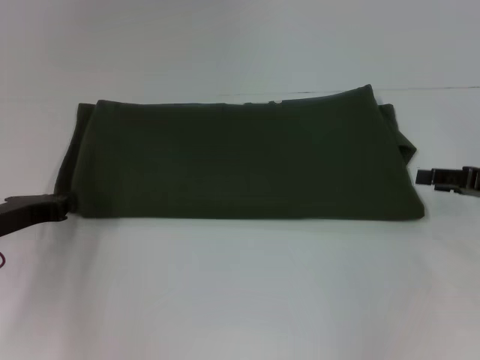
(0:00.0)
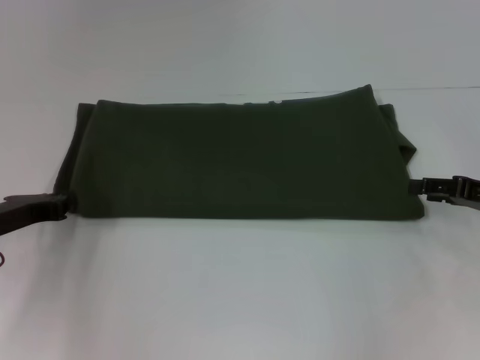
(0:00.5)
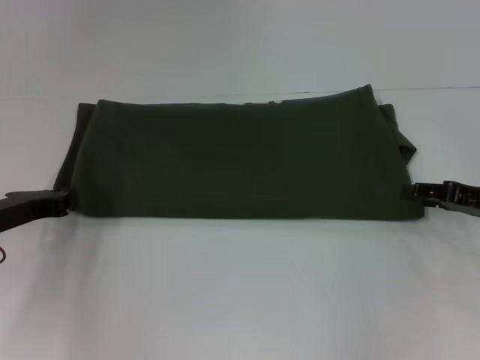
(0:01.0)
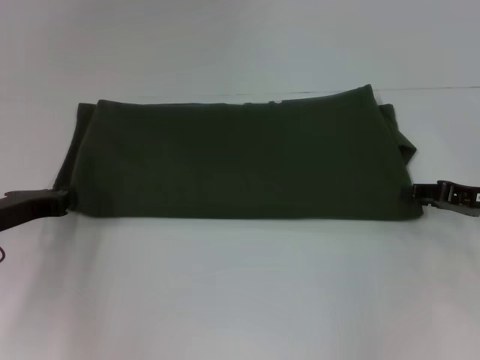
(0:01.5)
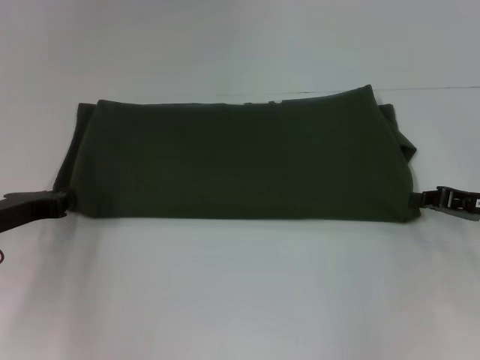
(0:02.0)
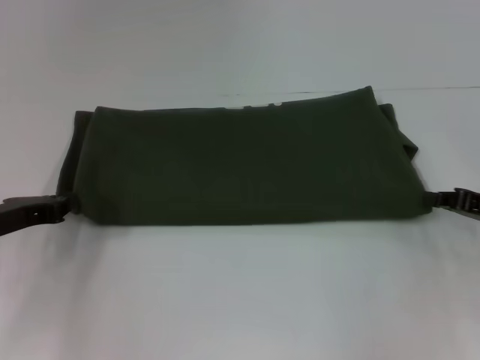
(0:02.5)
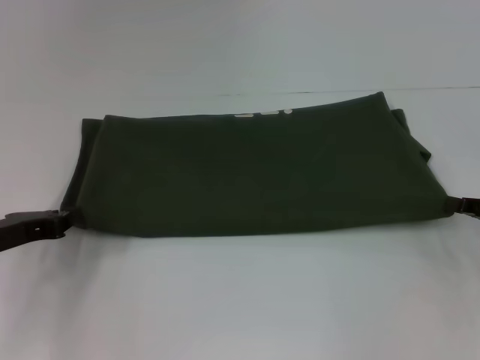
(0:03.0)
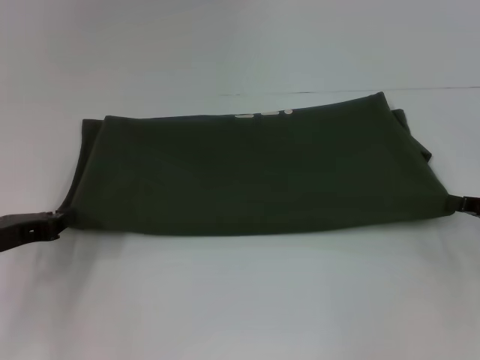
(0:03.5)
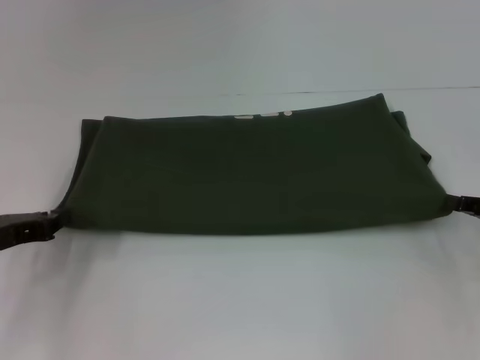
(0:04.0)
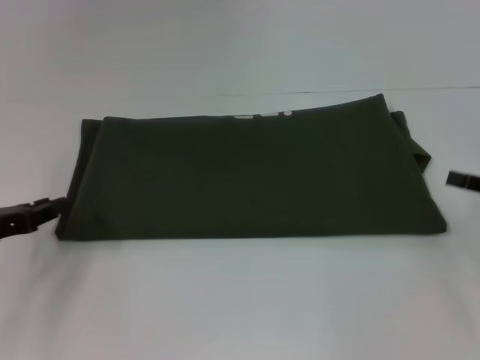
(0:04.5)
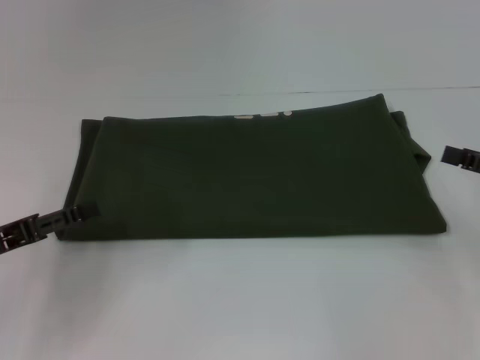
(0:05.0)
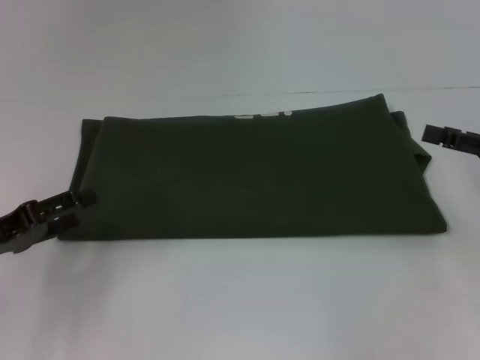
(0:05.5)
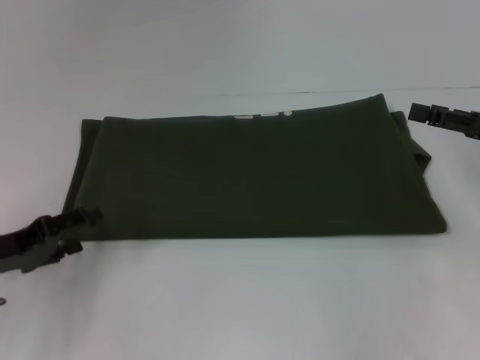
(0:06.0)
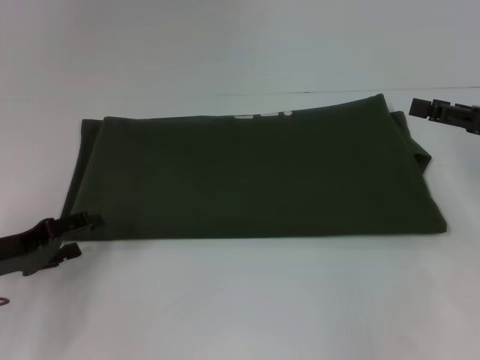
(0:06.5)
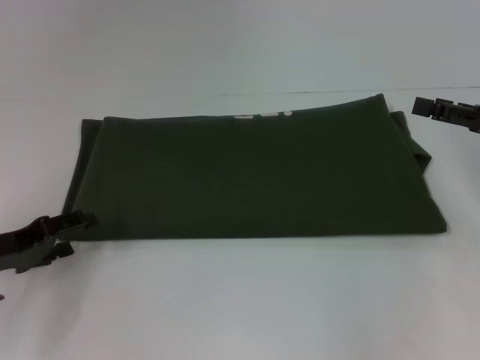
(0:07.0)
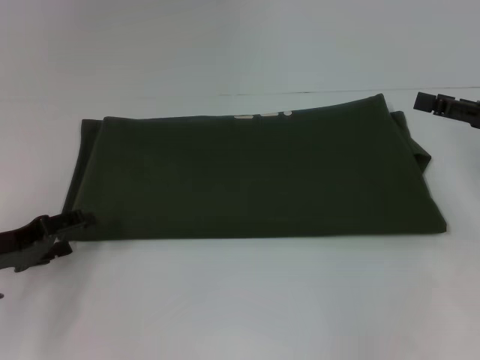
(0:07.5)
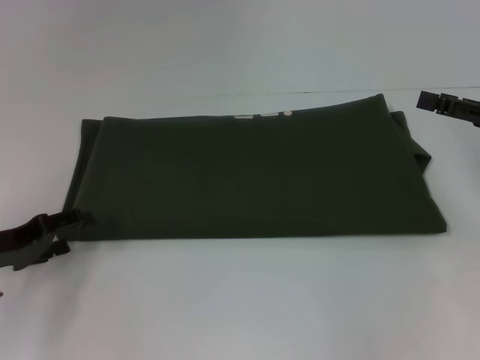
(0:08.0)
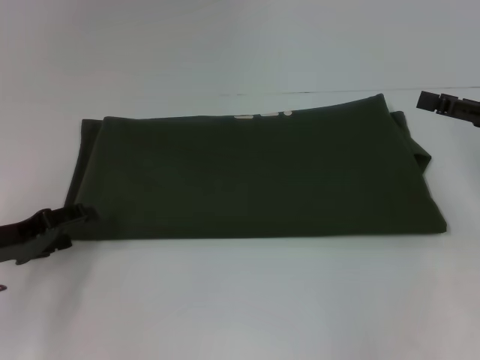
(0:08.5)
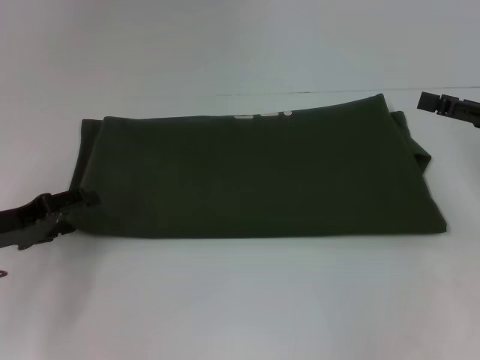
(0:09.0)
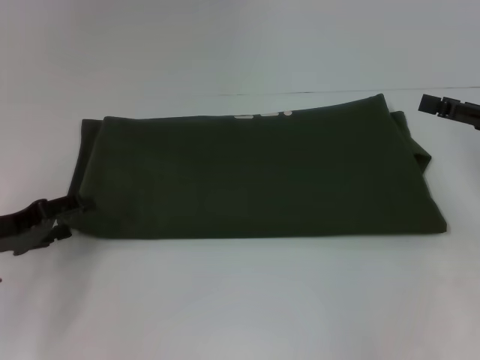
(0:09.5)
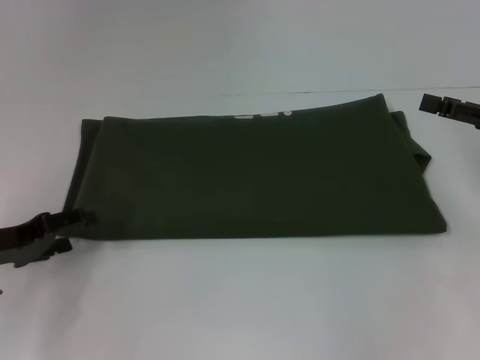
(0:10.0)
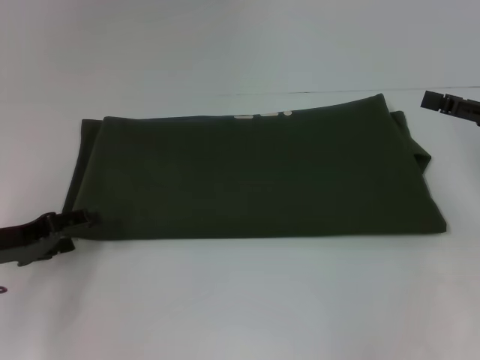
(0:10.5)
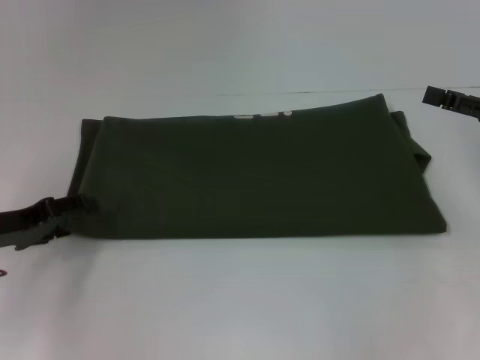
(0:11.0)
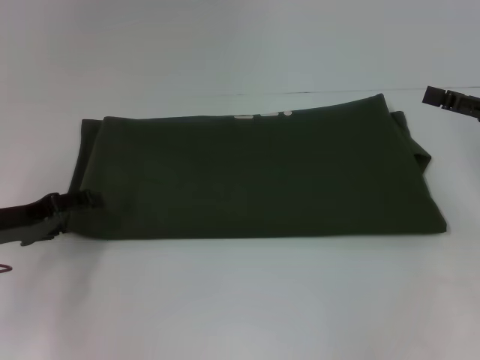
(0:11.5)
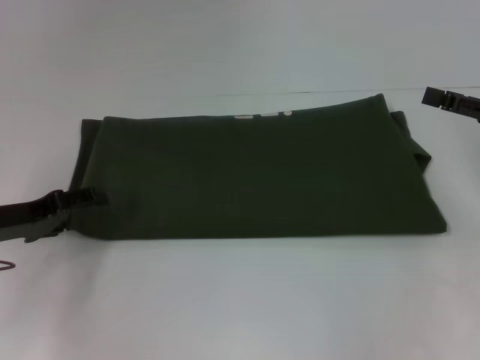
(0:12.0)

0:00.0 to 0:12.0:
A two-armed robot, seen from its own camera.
Step, 0:00.0 to 0:04.5: Pull the clothes with your left hand.
Step, 0:00.0 to 0:04.5: Pull the clothes with your right hand.
0:00.0 to 0:02.0: The right gripper closes.
0:02.0 to 0:04.0: The right gripper changes place by some 5 cm.
0:04.0 to 0:06.0: The right gripper travels upward by approximately 5 cm, and opens up, while the left gripper opens its fingers.
0:06.0 to 0:08.0: There are only small adjustments of the grippers.
0:10.0 to 0:12.0: There are only small adjustments of the grippers.

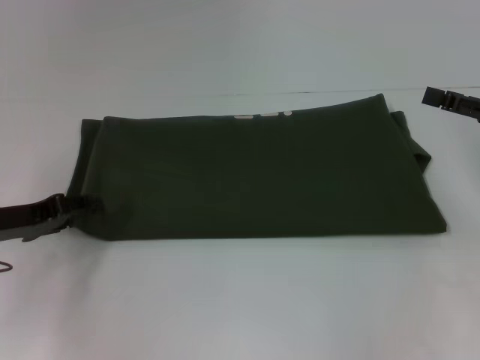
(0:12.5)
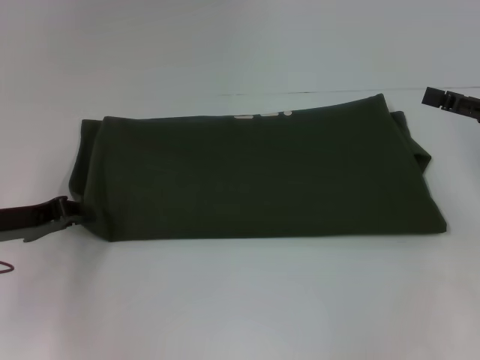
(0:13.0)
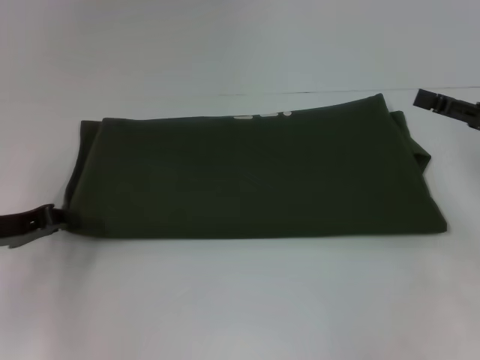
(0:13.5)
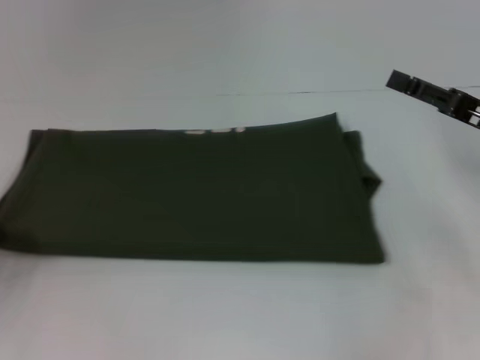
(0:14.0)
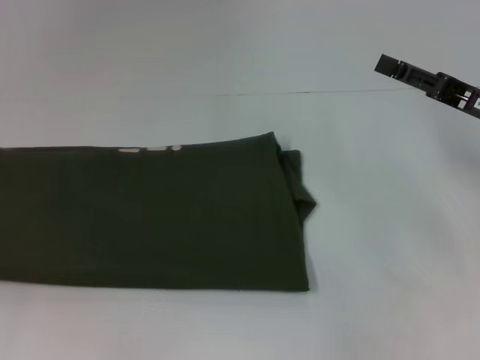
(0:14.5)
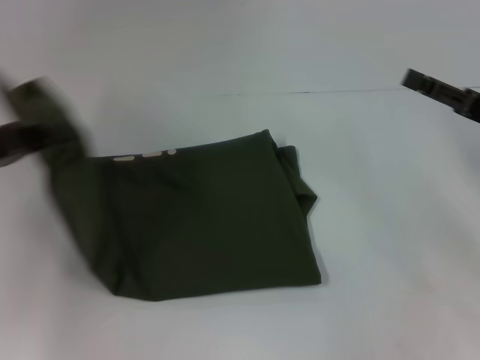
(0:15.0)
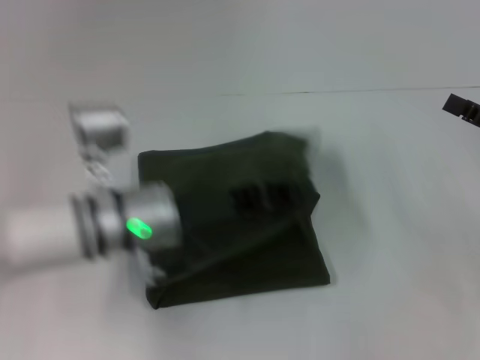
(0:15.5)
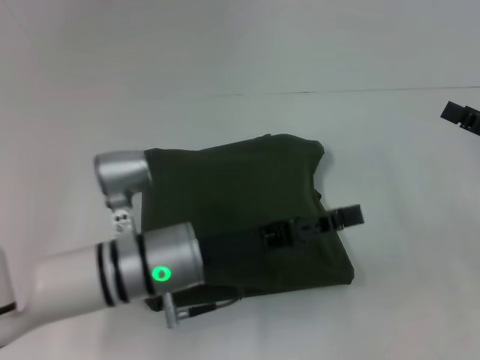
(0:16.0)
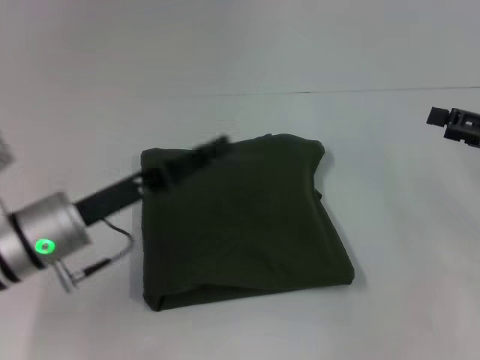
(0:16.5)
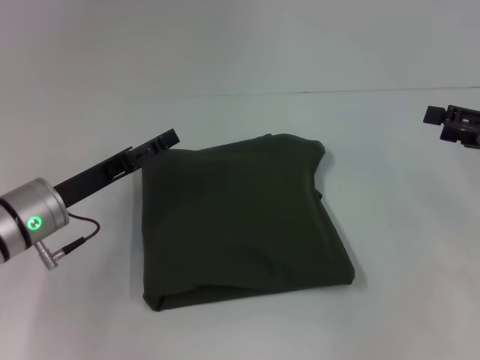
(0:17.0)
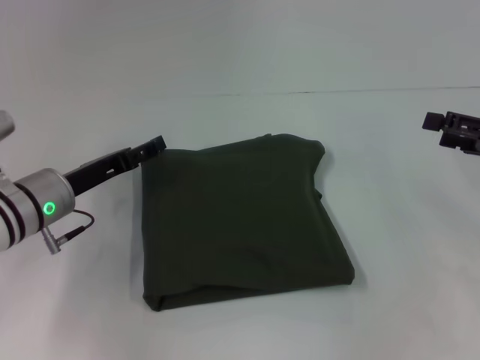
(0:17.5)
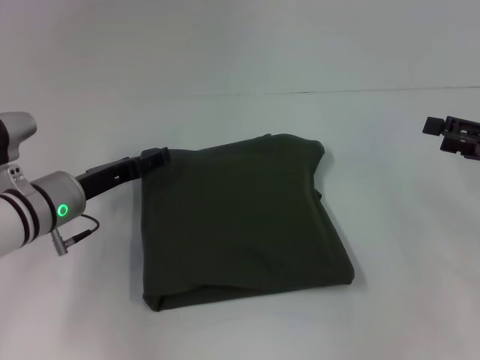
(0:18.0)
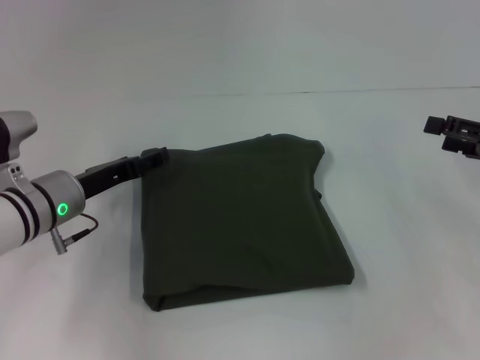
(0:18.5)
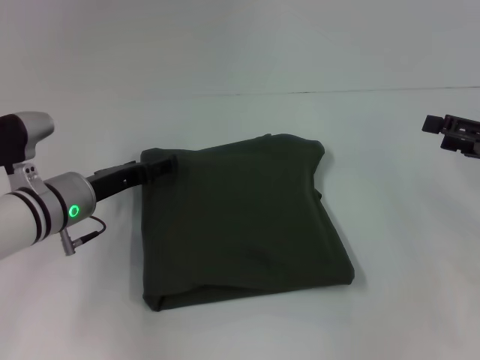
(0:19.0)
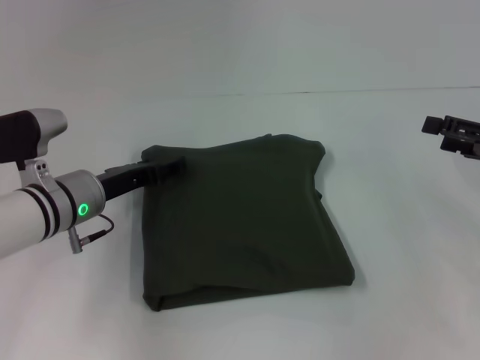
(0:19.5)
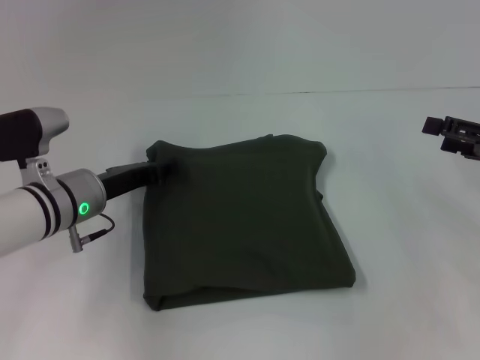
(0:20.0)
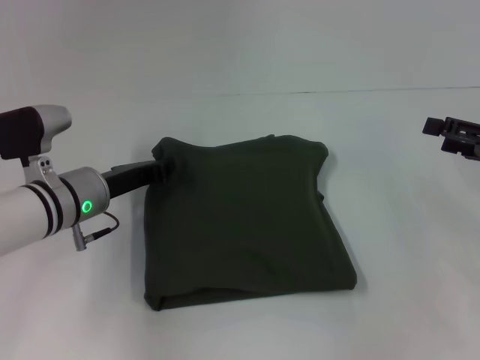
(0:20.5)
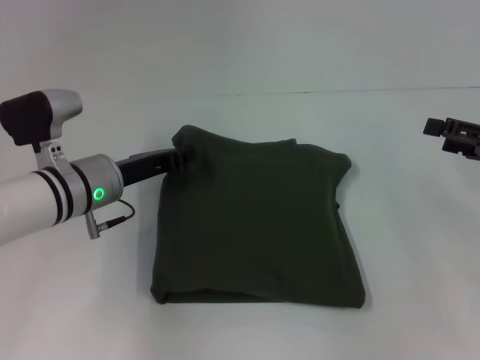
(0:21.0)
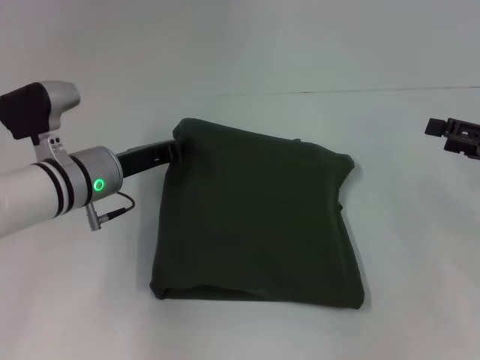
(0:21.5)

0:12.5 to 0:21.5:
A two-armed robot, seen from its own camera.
Step, 0:12.5 to 0:15.5: Fold the clothes with your left hand.
0:12.5 to 0:14.5: The right gripper shifts about 5 cm to the left; the left gripper heads to the left and backward, covering roughly 15 cm, and closes.
0:14.5 to 0:17.0: The right gripper heads to the right, covering about 5 cm; the left gripper goes roughly 25 cm to the right and forward, and opens its fingers.
0:17.0 to 0:19.5: The left gripper changes place by roughly 5 cm.
0:19.5 to 0:21.5: The left gripper closes its fingers.

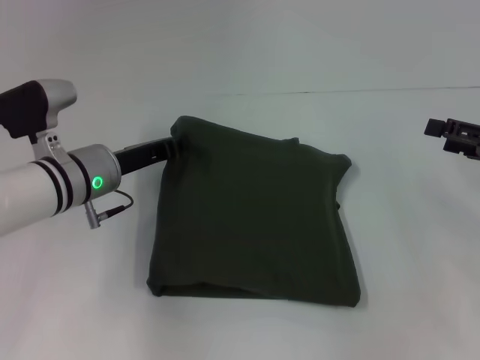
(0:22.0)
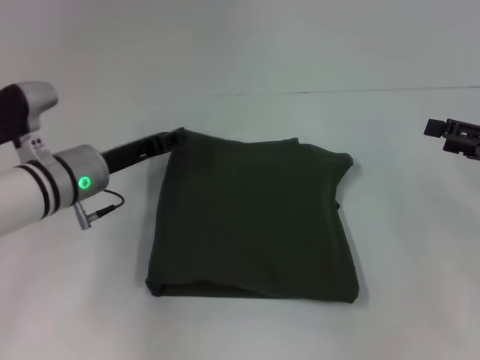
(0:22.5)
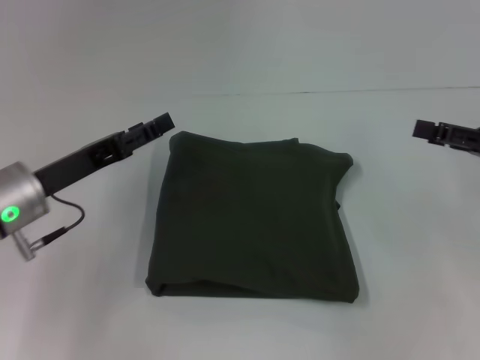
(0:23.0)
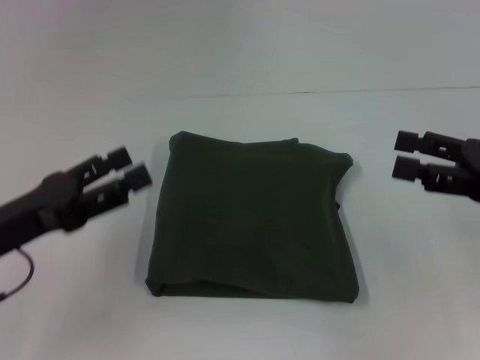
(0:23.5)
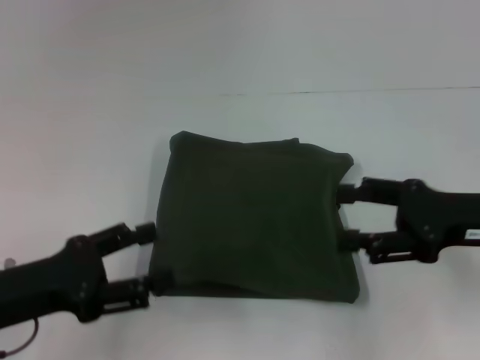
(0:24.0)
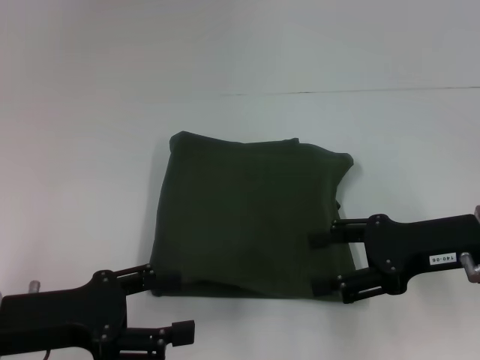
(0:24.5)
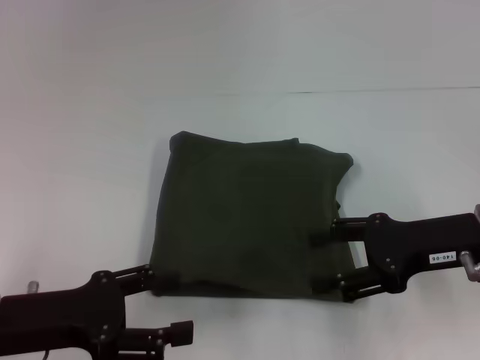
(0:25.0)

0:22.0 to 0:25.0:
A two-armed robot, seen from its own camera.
0:22.0 to 0:23.5: The right gripper moves about 5 cm; the left gripper travels backward and to the left by some 15 cm, and opens its fingers.
0:23.5 to 0:25.0: The right gripper travels to the left by about 5 cm.

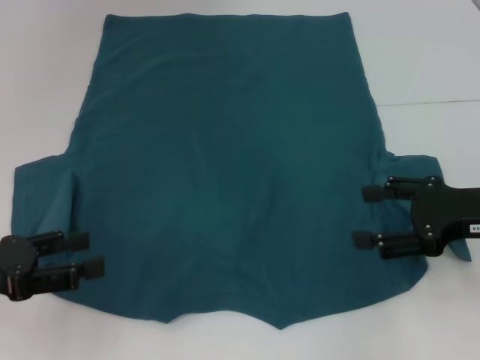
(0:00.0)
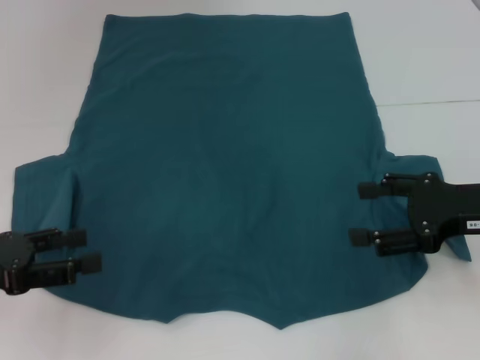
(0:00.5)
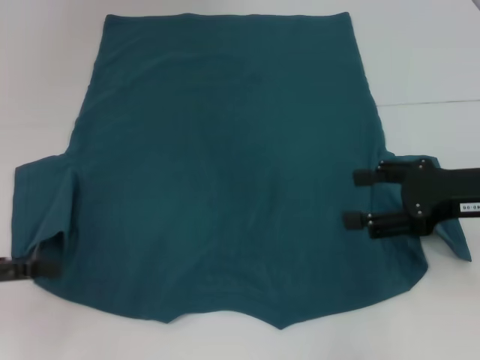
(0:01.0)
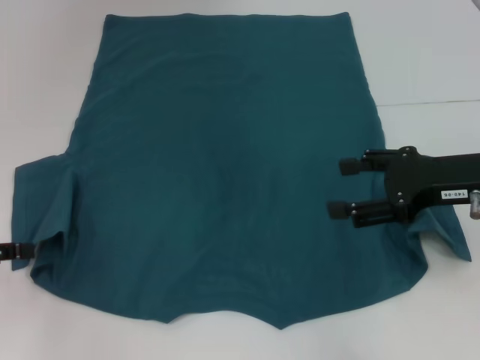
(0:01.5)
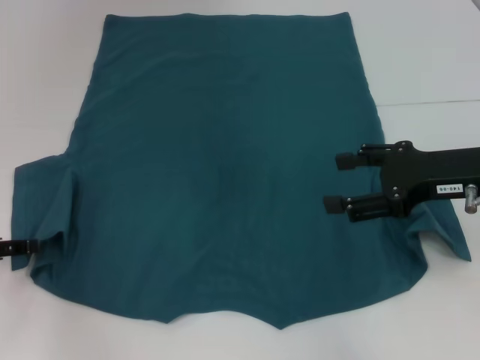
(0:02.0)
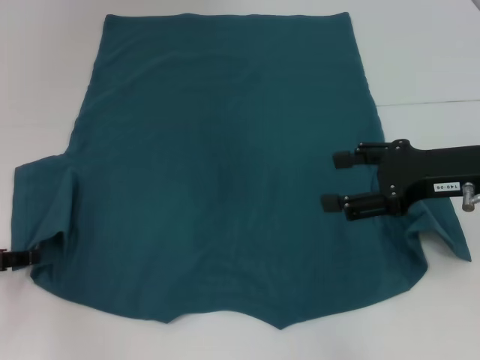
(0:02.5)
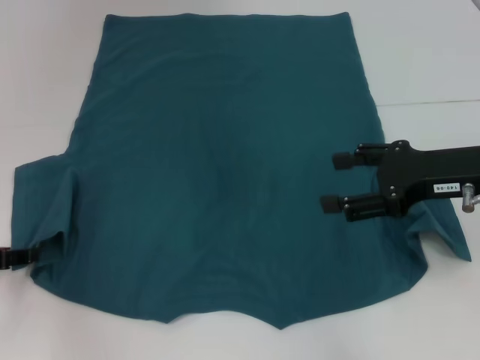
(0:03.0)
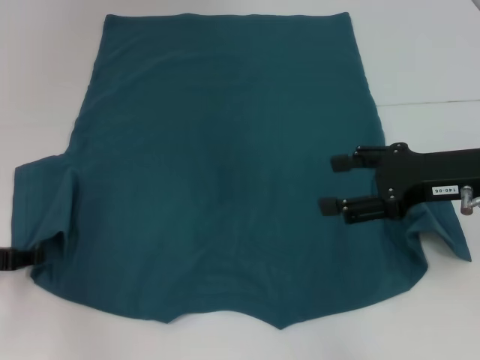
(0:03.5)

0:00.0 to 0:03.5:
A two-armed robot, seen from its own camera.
0:00.0 to 0:02.0: The left gripper moves about 5 cm.
0:02.0 to 0:03.5: There are only small adjustments of the grippers.
